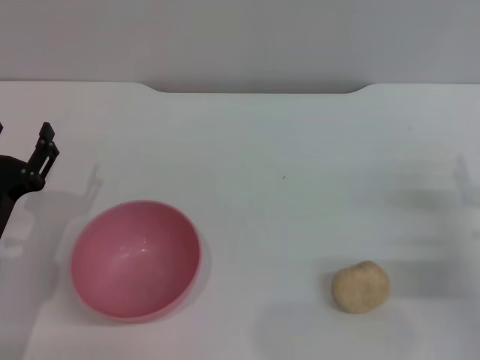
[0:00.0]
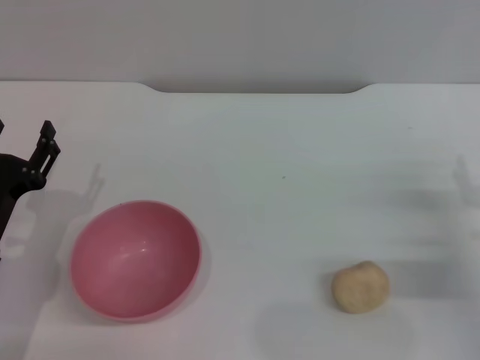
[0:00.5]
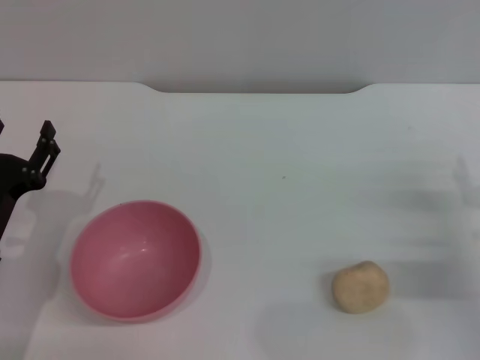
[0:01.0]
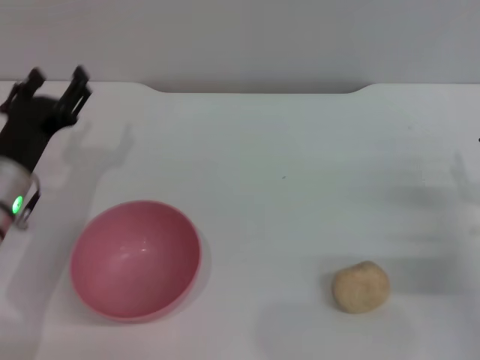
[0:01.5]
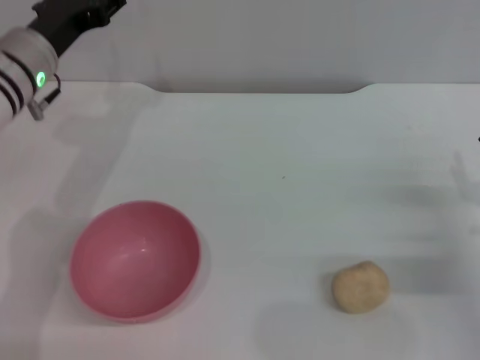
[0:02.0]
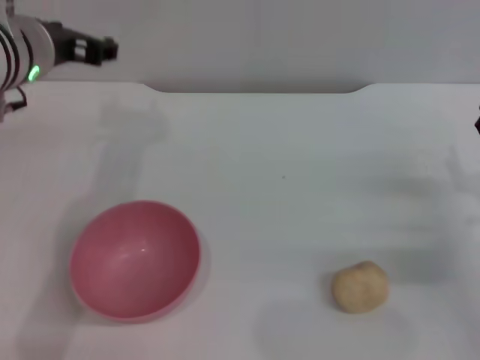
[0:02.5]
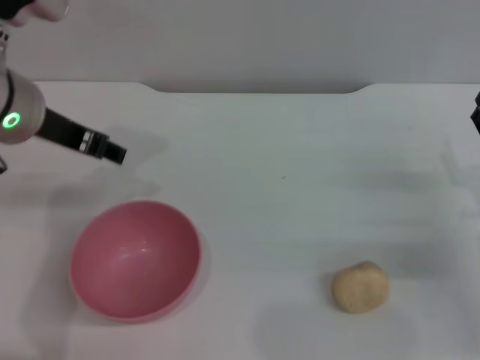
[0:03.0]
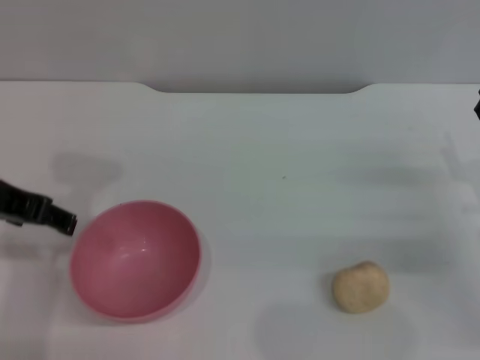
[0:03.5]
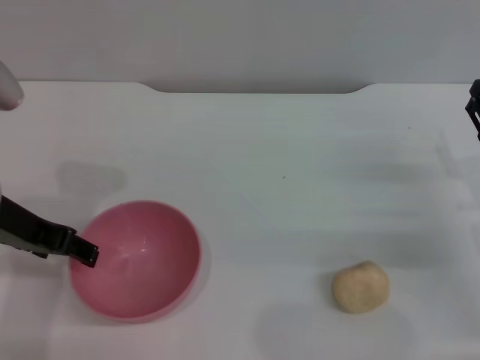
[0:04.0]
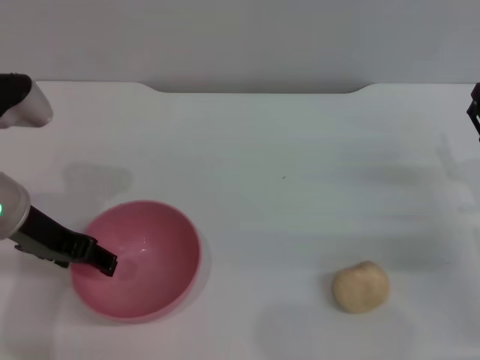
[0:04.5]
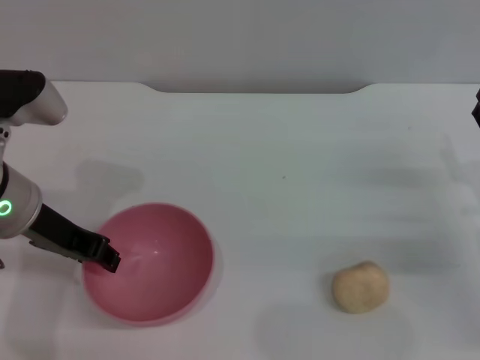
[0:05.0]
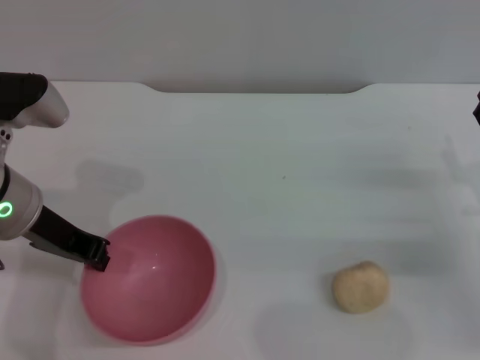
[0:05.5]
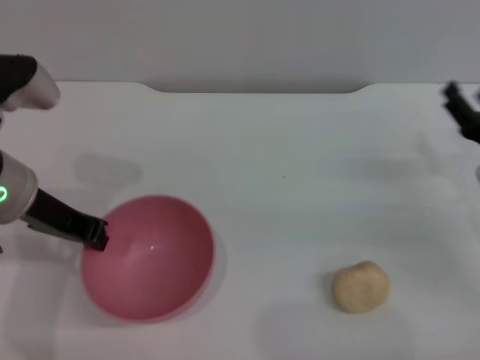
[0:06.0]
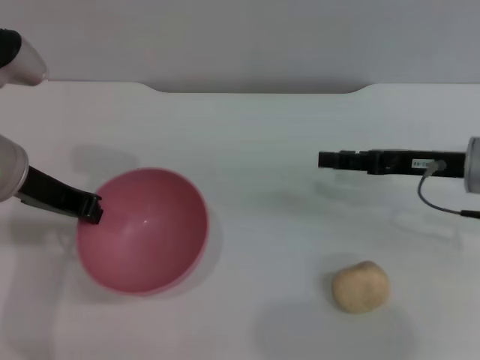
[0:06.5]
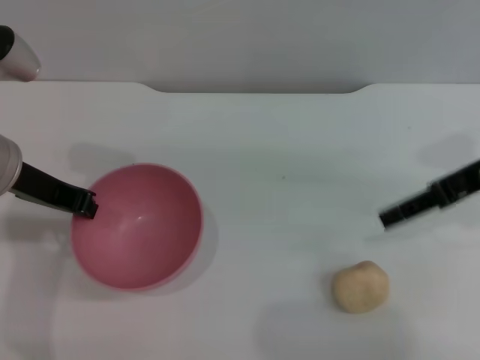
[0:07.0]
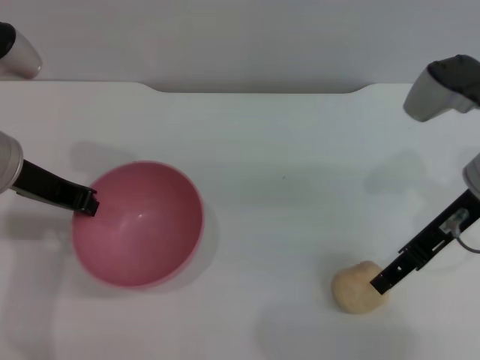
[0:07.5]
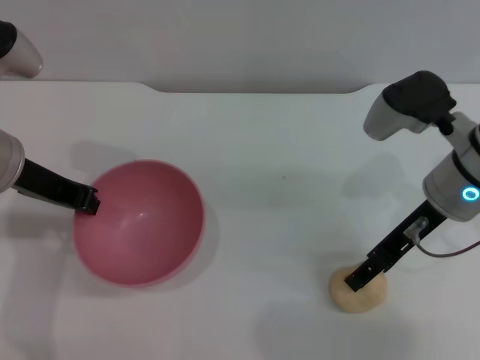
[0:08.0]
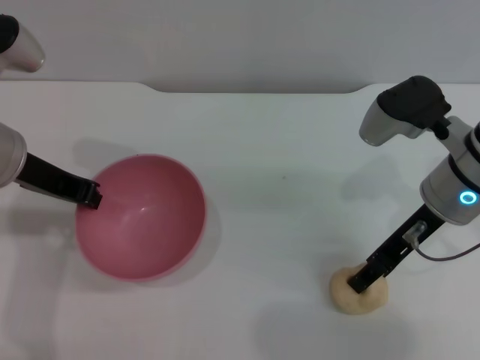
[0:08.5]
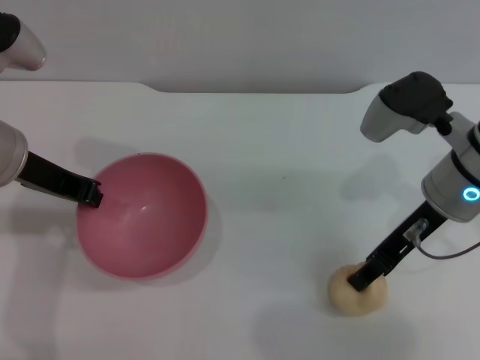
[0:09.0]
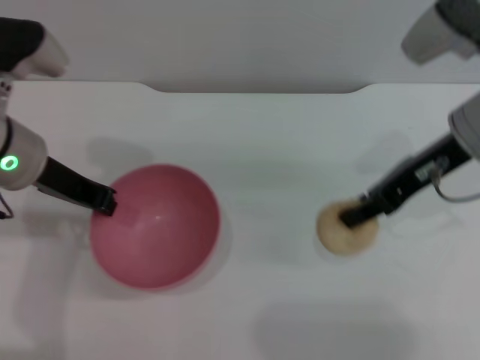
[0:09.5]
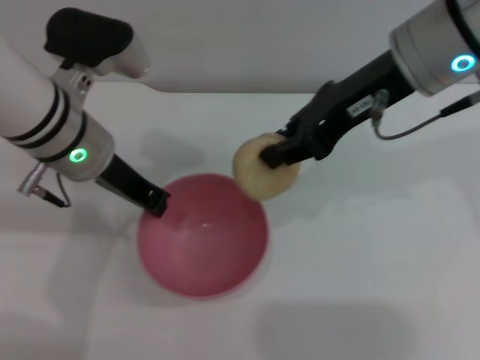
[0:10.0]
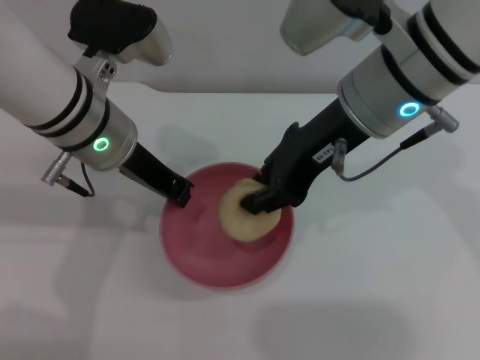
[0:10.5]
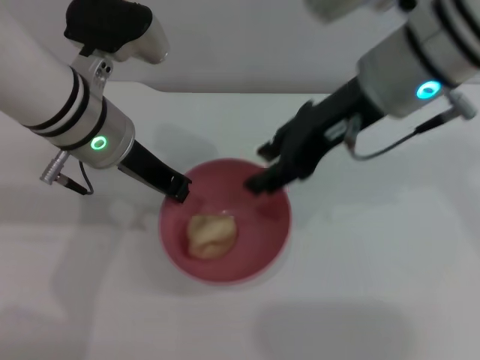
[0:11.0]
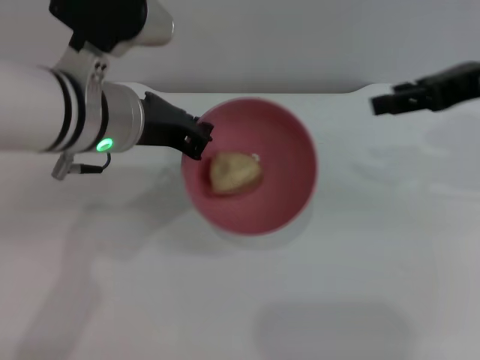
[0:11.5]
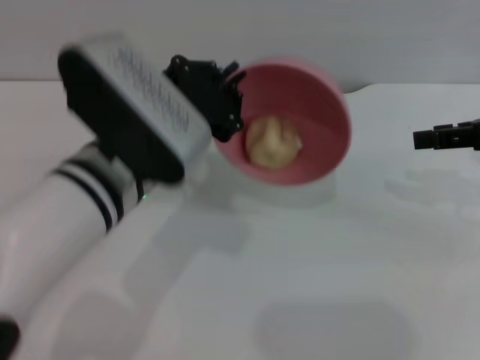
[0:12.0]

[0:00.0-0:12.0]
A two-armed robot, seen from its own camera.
Task of the whole recording: put the egg yolk pastry into the pink bowl and pour it out repeatedly.
Step, 0:00.0 to 0:06.5: Pick up the bowl with the left gripper.
Step, 0:07.0 to 0:09.0: Pick up the egg yolk pastry with the right gripper.
Step, 0:09.5 to 0:11.0: Place the egg yolk pastry into the bowl.
0:00.0 to 0:02.0: The left gripper goes roughly 20 cm forward and upward.
0:02.0 to 0:04.0: The left gripper travels backward by approximately 10 cm.
0:04.0 to 0:06.0: The left gripper closes up.
0:06.0 to 0:08.0: The right gripper is displaced to the left and upward by approximately 15 cm.
0:08.0 to 0:10.0: The left gripper heads to the right, covering approximately 5 cm. The right gripper shifts about 15 cm upward and to the left, and closes its fingers.
0:10.0 to 0:12.0: The right gripper shifts some 20 cm to the right, and opens; the left gripper travels backward and to the right by approximately 10 cm.

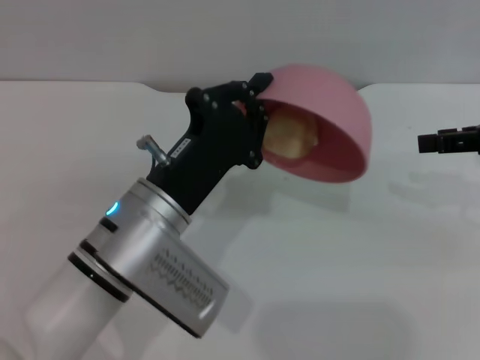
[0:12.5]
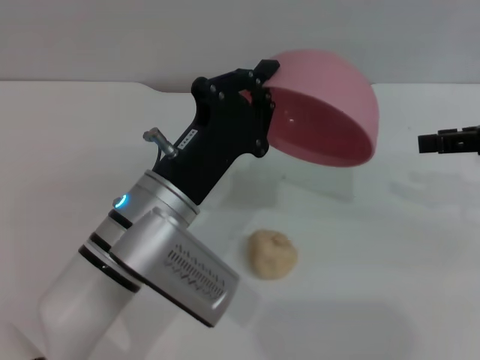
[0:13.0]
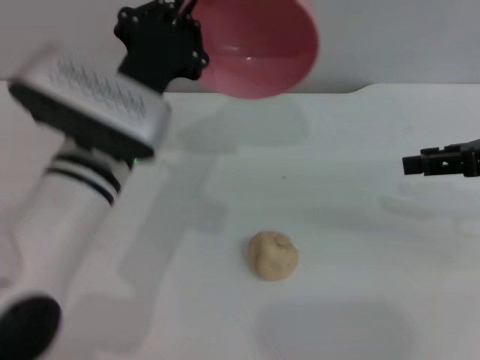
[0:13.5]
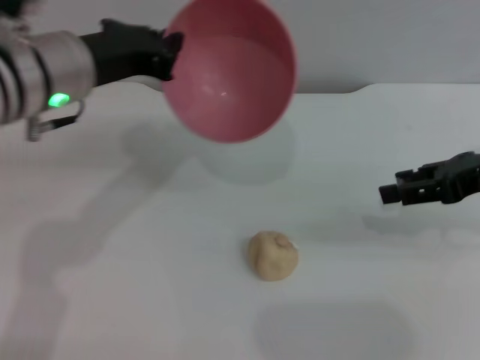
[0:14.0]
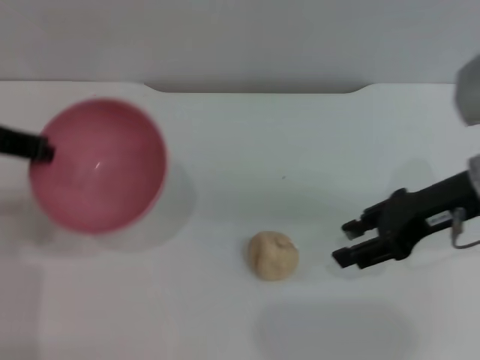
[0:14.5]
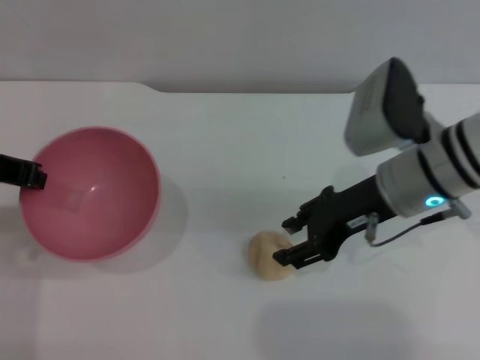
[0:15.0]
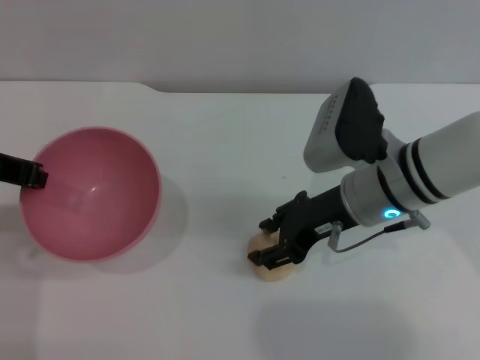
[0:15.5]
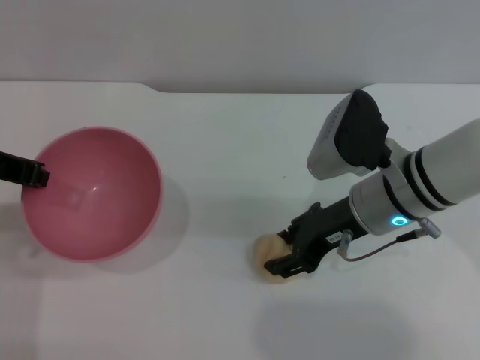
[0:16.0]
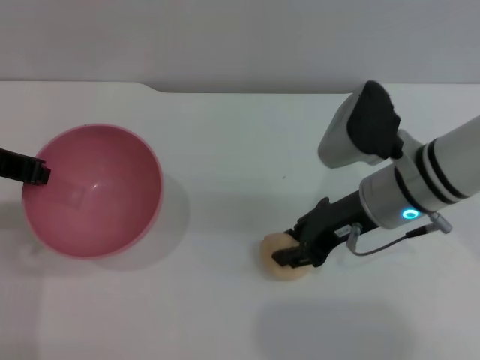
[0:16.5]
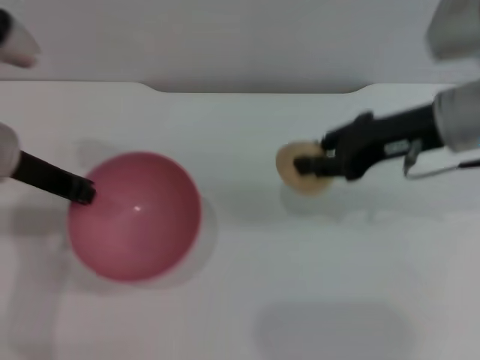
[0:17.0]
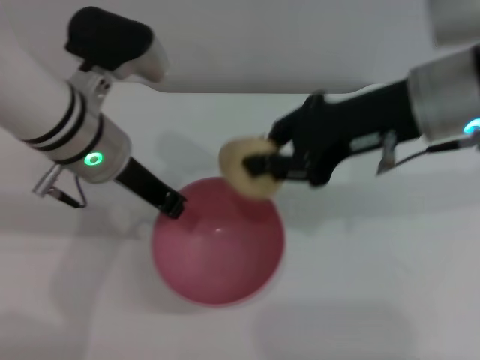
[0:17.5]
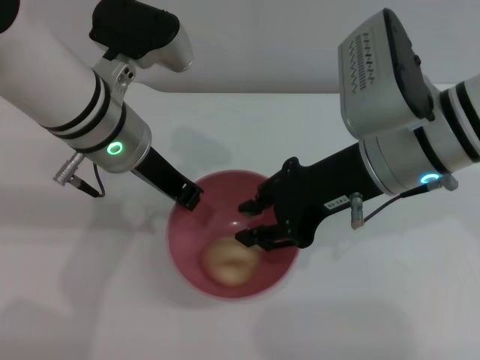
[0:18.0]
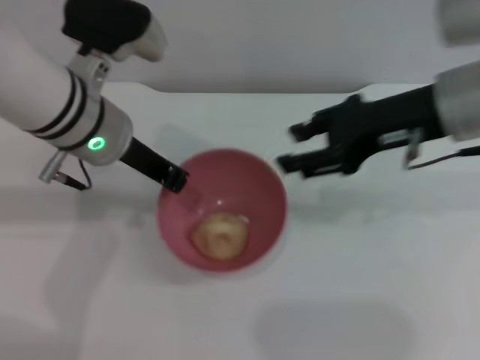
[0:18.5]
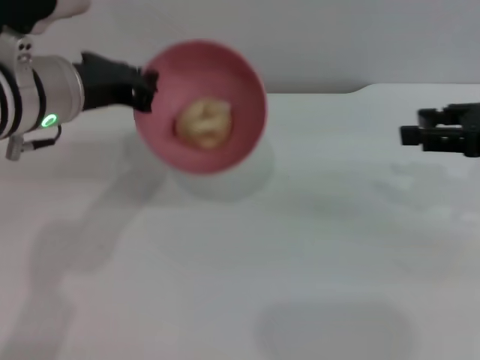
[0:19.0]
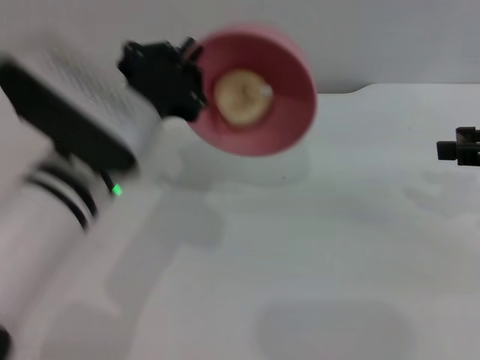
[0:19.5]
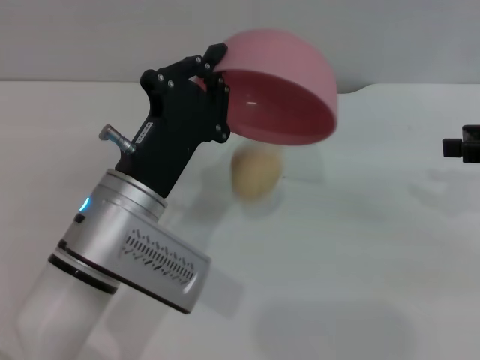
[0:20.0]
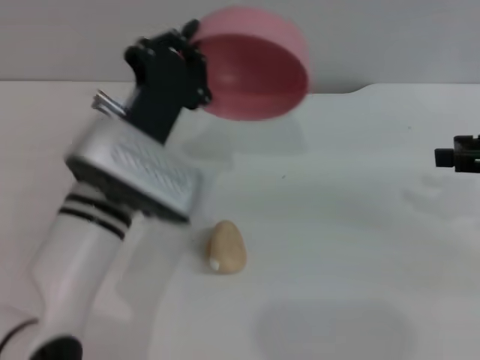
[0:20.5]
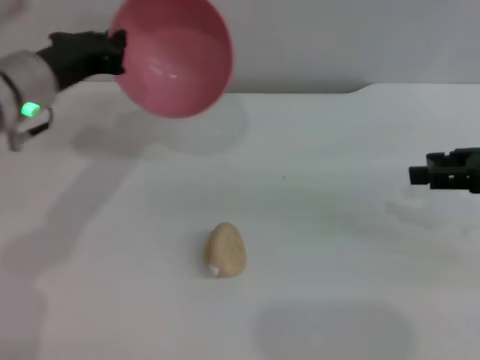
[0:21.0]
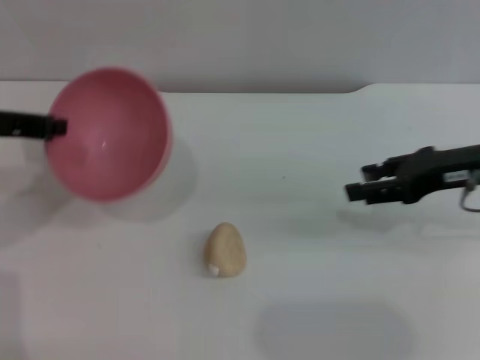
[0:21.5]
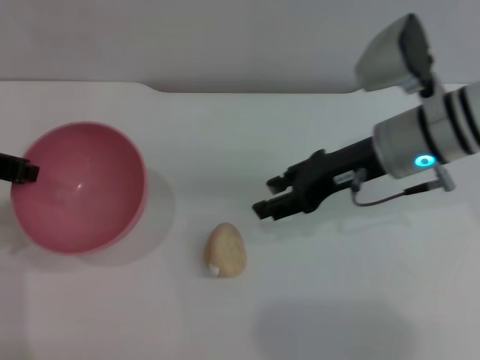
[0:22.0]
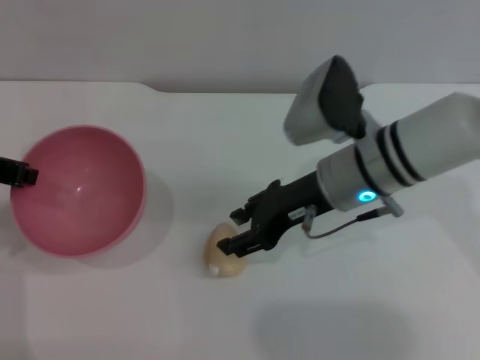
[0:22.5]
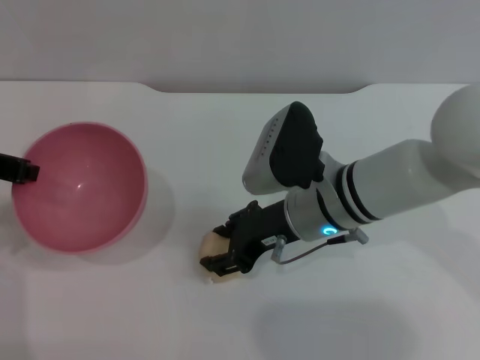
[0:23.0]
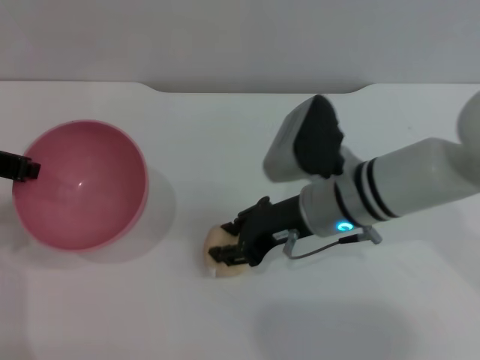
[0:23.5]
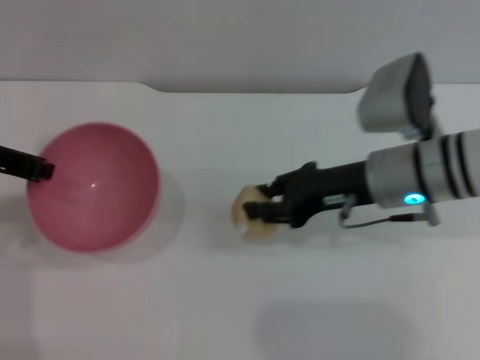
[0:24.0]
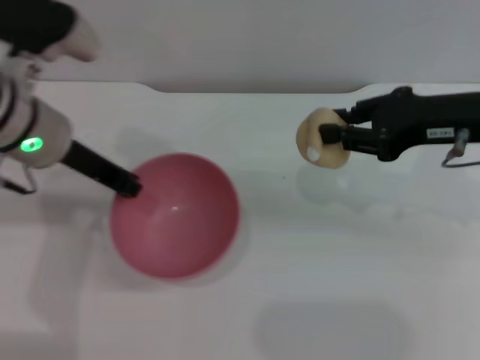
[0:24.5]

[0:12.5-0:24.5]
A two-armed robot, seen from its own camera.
Task of the whole recording: put the egg yolk pastry into the pink bowl and pour it out repeatedly.
Step, 0:13.5 to 0:16.5: Pick up the egg yolk pastry with the right gripper.
Step, 0:17.0 to 0:18.0: Place the egg yolk pastry into the bowl.
Step, 0:18.5 to 0:20.0: Pour the egg yolk pastry out of bowl.
Step, 0:20.5 to 0:24.0: Pick up the egg yolk pastry with the right gripper.
0:12.5 to 0:14.5: The right gripper travels to the left by roughly 10 cm, while the left gripper moves to the left, upward and forward, about 20 cm.
0:14.5 to 0:16.5: The right gripper shifts some 10 cm to the left, and closes its fingers.
0:16.5 to 0:18.5: The left gripper moves to the right, approximately 10 cm, while the right gripper shifts about 10 cm upward.
0:18.5 to 0:20.5: The right gripper heads to the right, covering about 15 cm; the left gripper goes about 10 cm downward and backward.
0:20.5 to 0:22.5: The right gripper is displaced to the left by roughly 25 cm. Meanwhile the left gripper travels to the left and upward by about 20 cm.
0:22.5 to 0:24.5: The right gripper heads to the right and upward, covering roughly 15 cm, and closes. Meanwhile the left gripper moves to the right, about 10 cm.

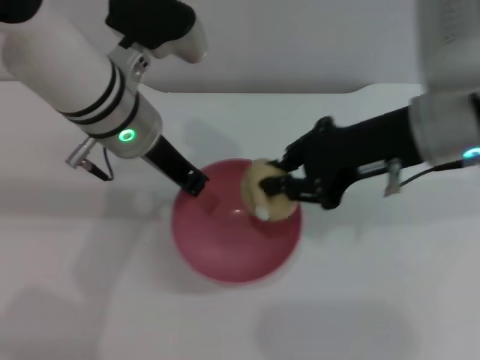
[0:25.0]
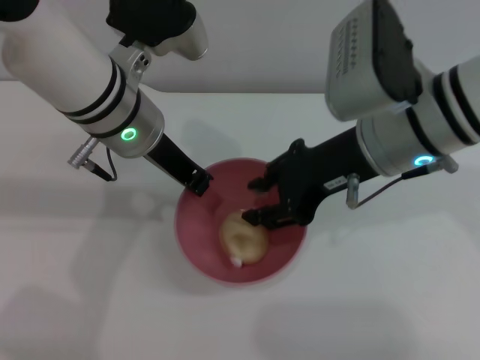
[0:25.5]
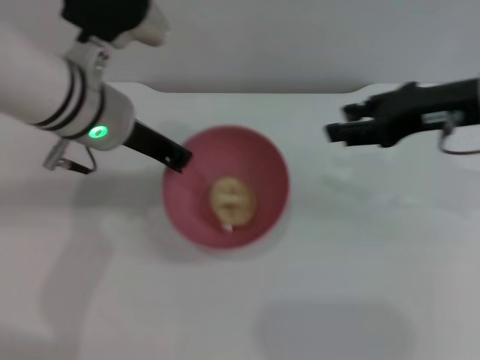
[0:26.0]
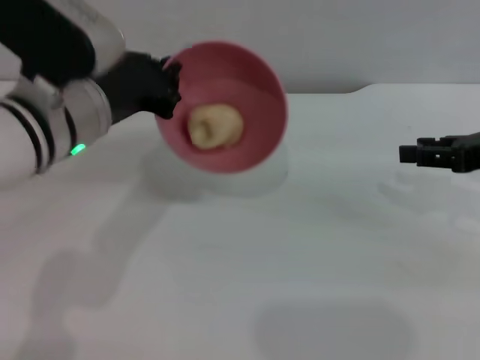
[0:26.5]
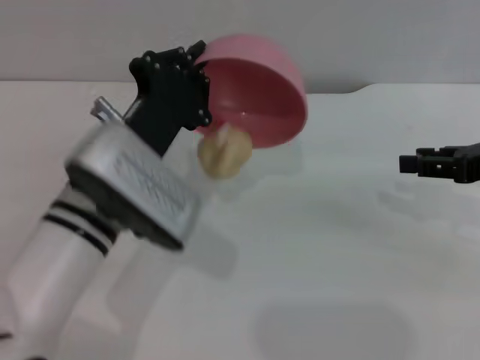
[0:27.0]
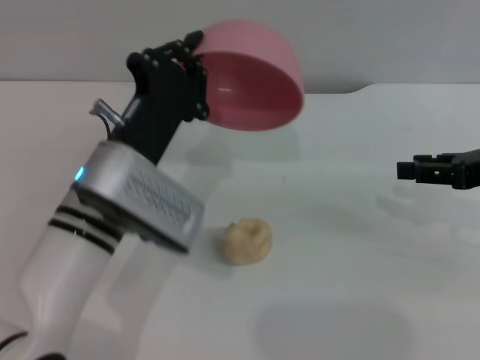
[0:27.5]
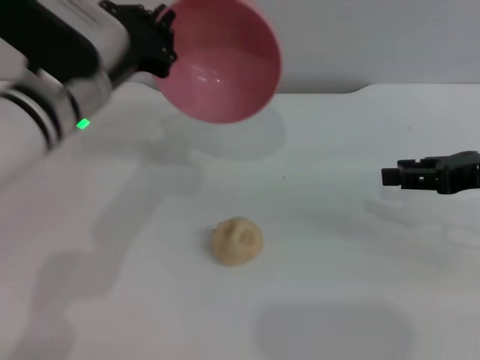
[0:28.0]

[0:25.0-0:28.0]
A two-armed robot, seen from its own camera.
Task of the whole recording: put the egg yolk pastry into the pink bowl and pour it out repeatedly.
Step, 0:26.0 to 0:27.5: Pour the egg yolk pastry out of bowl.
0:25.0 to 0:26.5: The right gripper is displaced to the right by roughly 15 cm, and opens. Meanwhile the left gripper is displaced backward by approximately 5 cm.
0:26.5 to 0:28.0: The left gripper travels downward and back again, about 10 cm each way.
